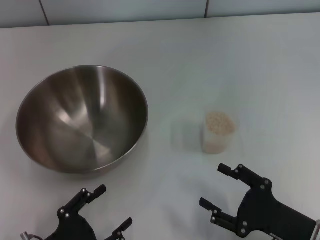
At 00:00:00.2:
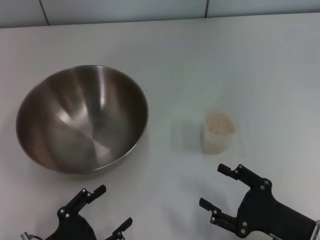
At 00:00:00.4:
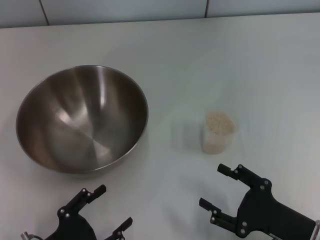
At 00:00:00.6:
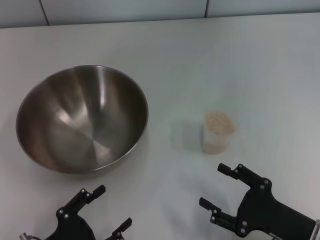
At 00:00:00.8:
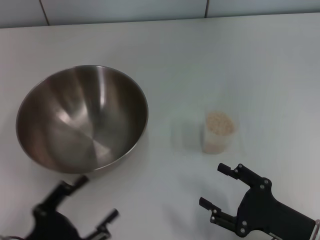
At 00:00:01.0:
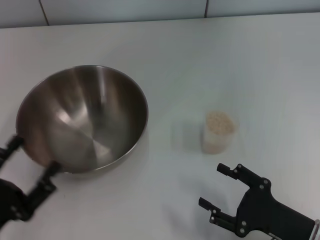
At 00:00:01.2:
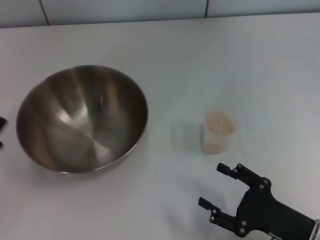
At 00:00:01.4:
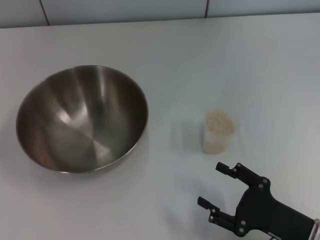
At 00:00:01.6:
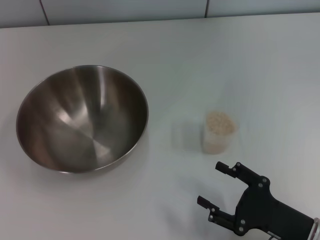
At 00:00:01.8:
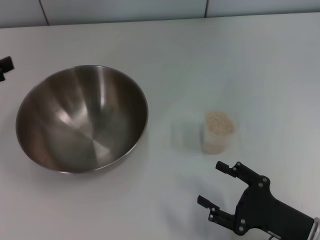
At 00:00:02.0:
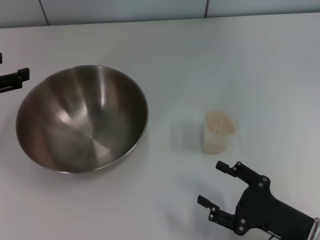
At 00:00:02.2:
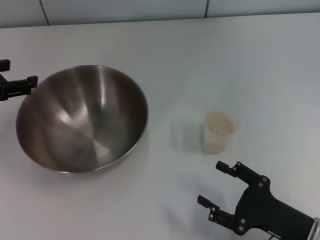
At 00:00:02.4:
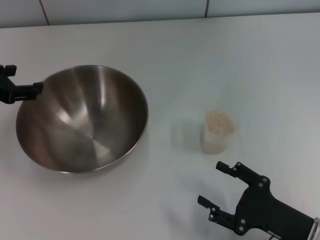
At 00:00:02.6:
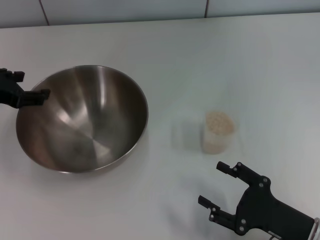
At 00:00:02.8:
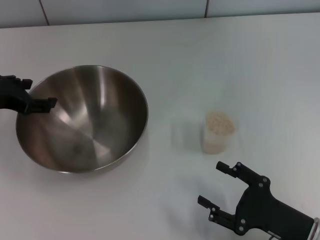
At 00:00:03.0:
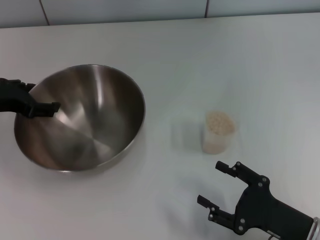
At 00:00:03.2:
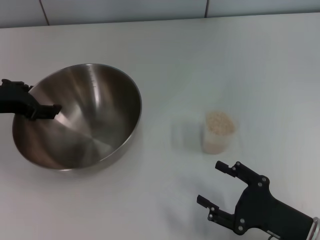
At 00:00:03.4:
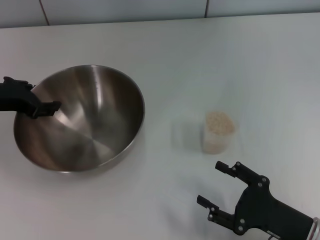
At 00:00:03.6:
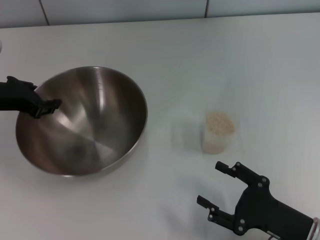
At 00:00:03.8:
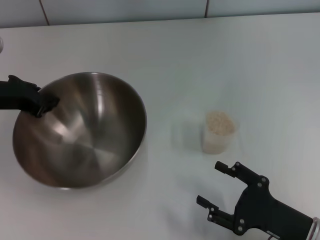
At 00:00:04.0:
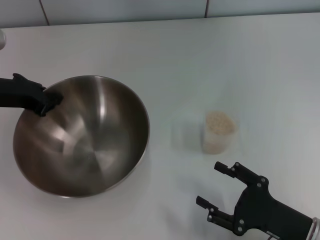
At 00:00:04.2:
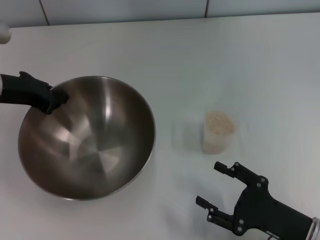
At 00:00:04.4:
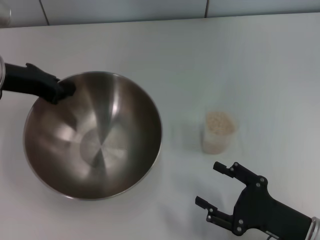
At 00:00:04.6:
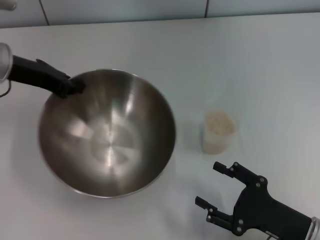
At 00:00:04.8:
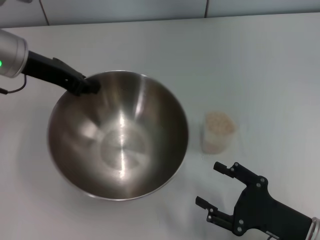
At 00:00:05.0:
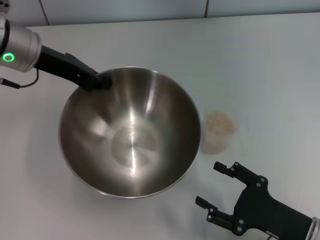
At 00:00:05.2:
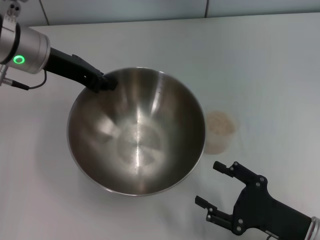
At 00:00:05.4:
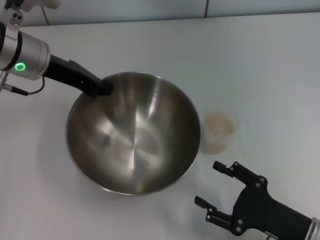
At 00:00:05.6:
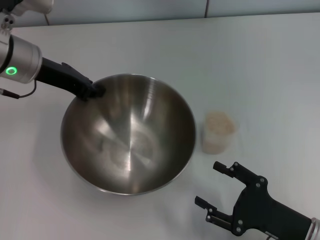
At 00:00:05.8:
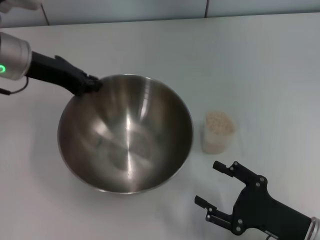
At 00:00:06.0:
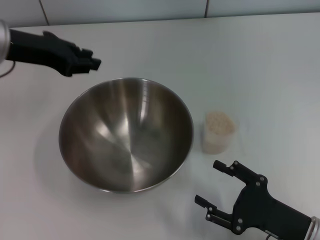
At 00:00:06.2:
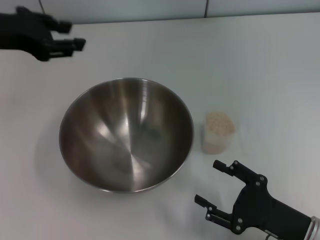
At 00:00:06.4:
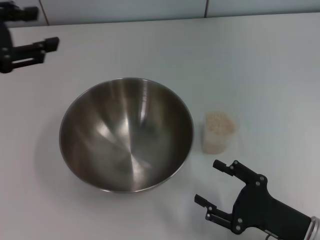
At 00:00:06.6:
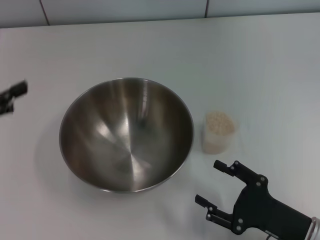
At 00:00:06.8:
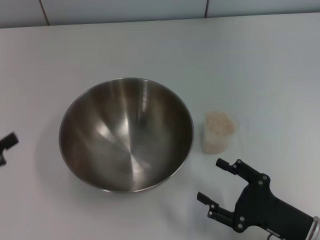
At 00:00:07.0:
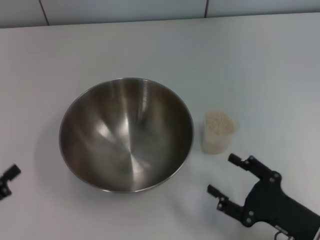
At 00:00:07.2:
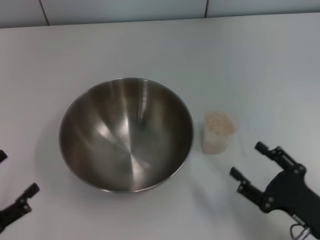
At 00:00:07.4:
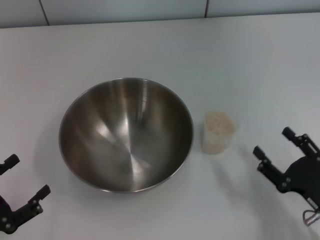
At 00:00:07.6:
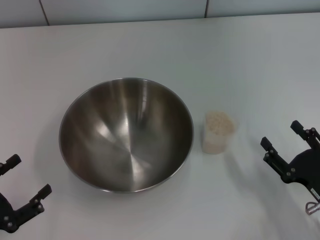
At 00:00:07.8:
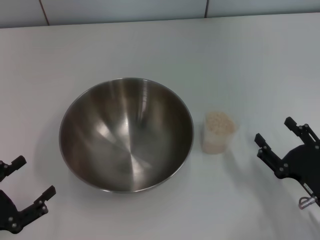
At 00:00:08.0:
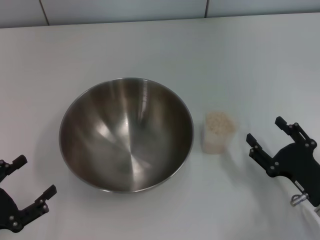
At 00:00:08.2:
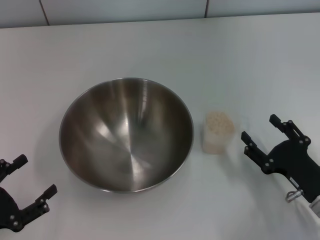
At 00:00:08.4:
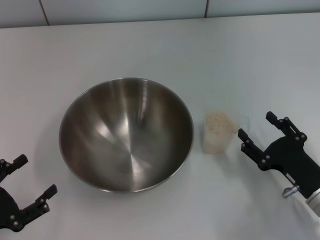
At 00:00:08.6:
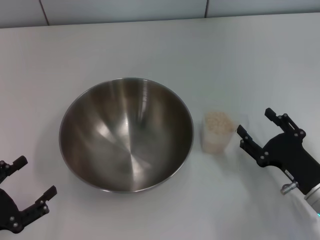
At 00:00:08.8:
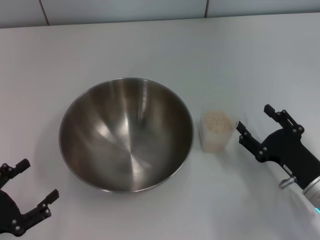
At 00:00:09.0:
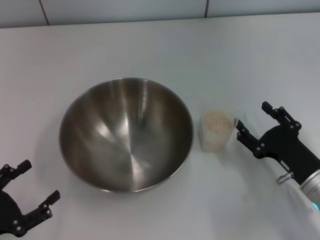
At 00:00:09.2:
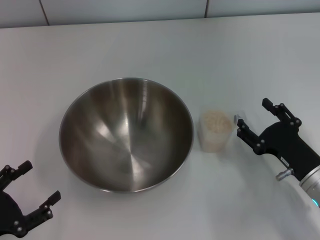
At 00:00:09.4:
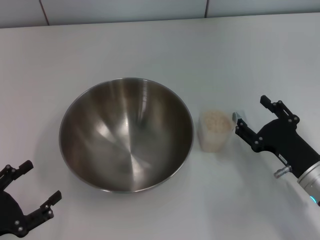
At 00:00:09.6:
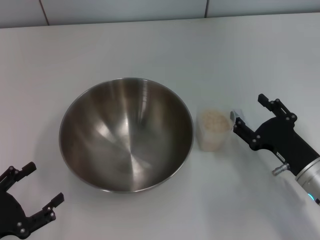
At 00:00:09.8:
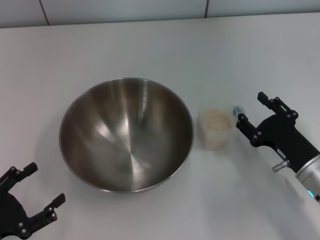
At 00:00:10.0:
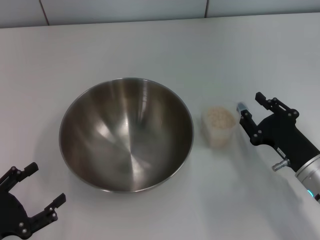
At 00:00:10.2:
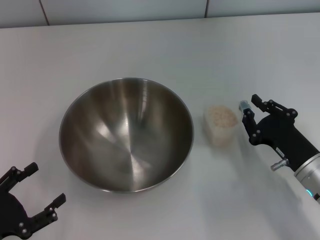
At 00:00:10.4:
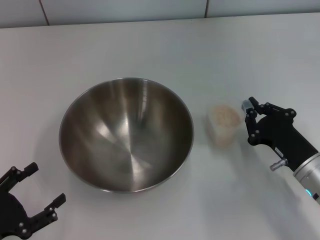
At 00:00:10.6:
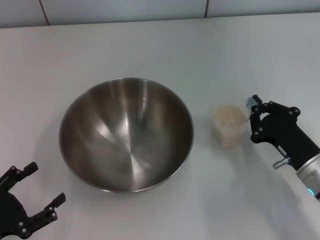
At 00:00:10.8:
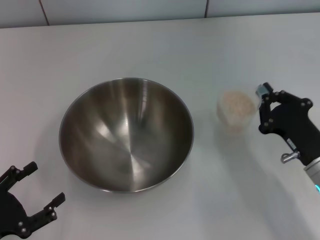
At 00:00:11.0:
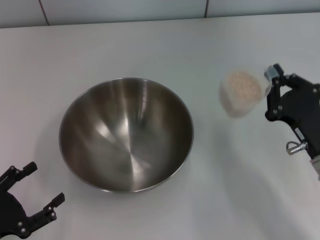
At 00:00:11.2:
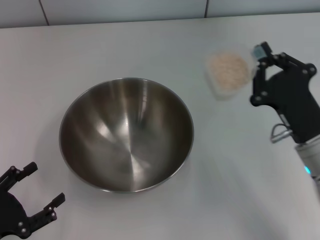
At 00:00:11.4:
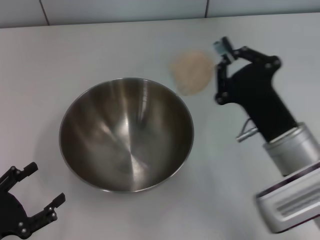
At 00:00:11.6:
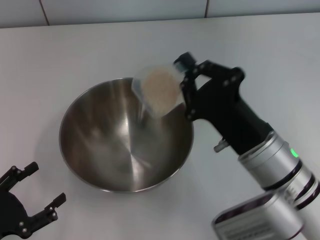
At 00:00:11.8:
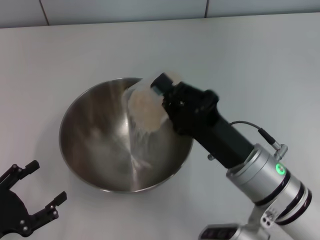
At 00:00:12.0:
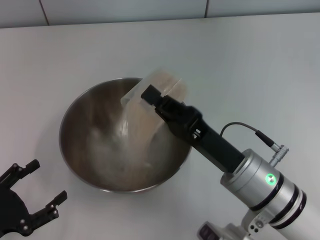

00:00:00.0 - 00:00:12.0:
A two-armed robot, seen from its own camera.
Task of the whole recording: Place the bowl in the middle of the table with one hand and pour the rice from the grain cup into it with the other hand.
Step, 00:00:00.0 - 00:00:04.8: Pick up the bowl with the left gripper.
Step, 00:00:05.0 - 00:00:06.4: Place the bowl in the center of view with the left gripper.
Step, 00:00:06.6 - 00:00:11.0: Pick up the cup with rice in it with the right gripper.
00:00:00.0 - 00:00:01.6: The left gripper goes about 25 cm upward, forward and to the left.
00:00:01.6 - 00:00:03.0: The left gripper shifts some 10 cm forward and to the right.
00:00:03.0 - 00:00:04.4: The left gripper changes place by some 5 cm, and closes its fingers.
00:00:04.4 - 00:00:06.0: The left gripper ends up some 5 cm from where it was.
00:00:06.0 - 00:00:07.6: The left gripper goes roughly 30 cm backward and downward, and opens up.
00:00:07.6 - 00:00:09.0: The right gripper goes approximately 5 cm forward.
00:00:09.0 - 00:00:10.4: The right gripper closes up.
00:00:10.4 - 00:00:12.0: The right gripper moves to the left and upward, approximately 15 cm.

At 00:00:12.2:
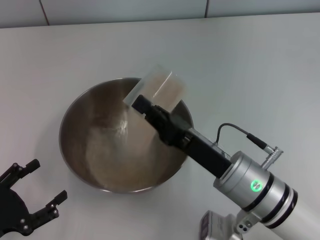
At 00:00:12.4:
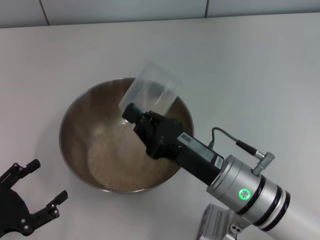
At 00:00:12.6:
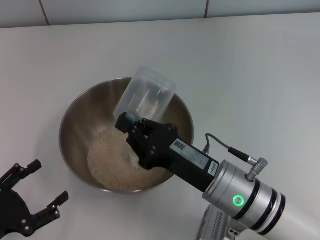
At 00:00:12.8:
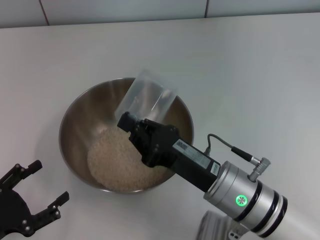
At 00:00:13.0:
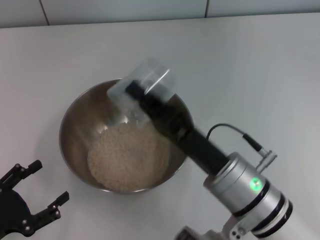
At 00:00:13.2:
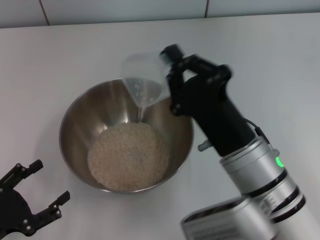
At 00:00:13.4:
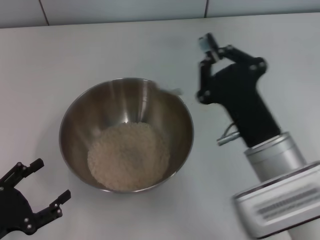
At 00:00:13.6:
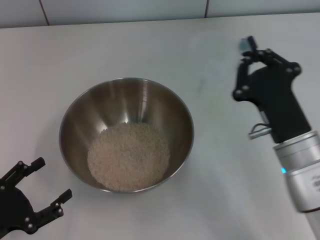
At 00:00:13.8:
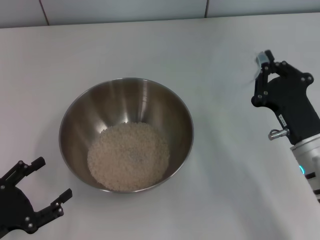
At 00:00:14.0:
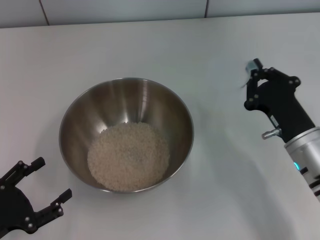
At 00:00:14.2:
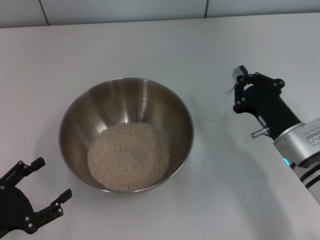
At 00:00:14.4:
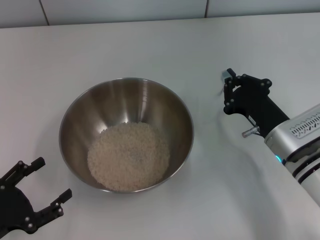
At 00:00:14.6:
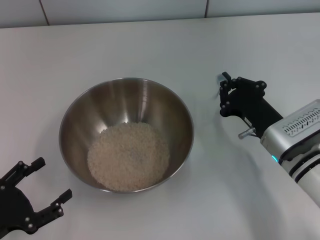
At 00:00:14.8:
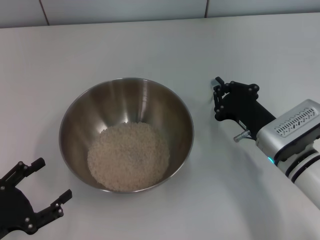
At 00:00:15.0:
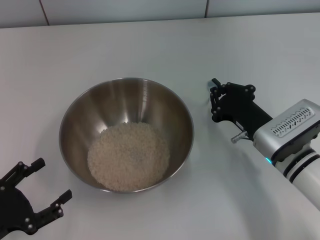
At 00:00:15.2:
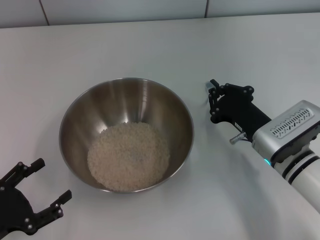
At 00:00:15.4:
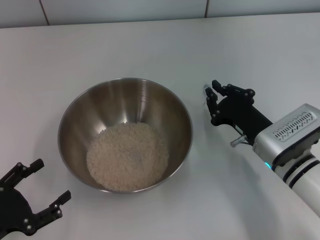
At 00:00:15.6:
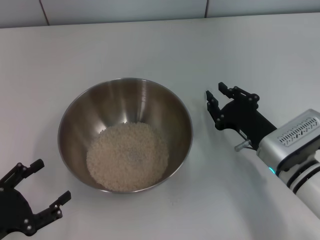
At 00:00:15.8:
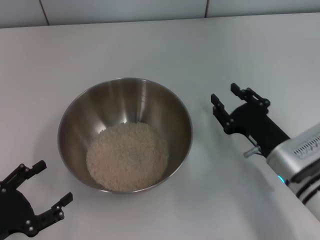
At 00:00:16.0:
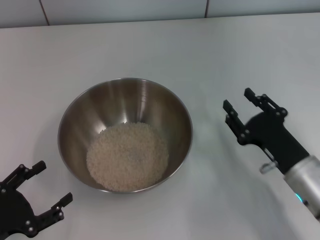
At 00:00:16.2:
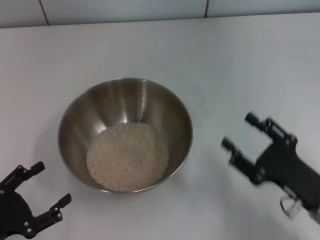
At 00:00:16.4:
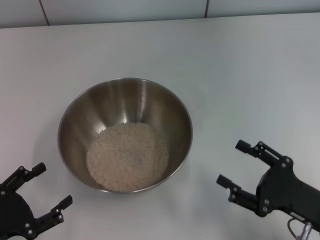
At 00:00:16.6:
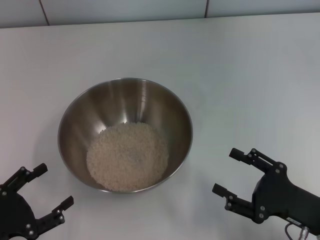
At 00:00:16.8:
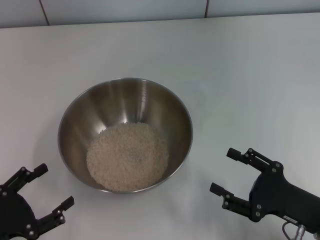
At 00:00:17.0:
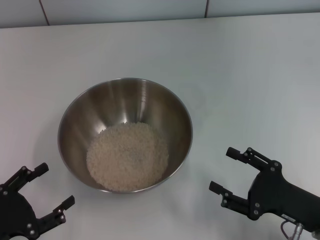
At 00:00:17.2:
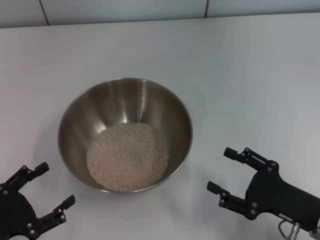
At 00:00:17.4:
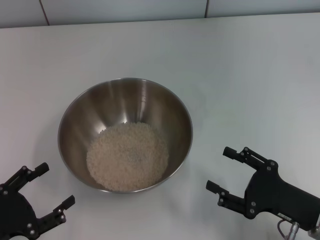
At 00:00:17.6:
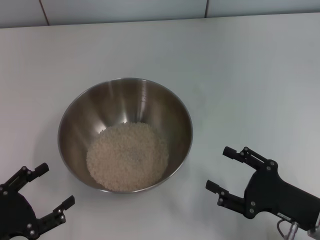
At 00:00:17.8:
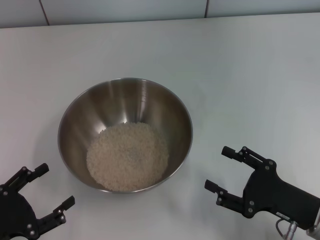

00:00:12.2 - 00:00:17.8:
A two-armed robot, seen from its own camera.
Task of the whole recording: Place the bowl in the middle of the table with one hand and pour the rice from the grain cup into it with the other hand.
Step, 00:00:12.2 - 00:00:13.4: Pour the rice from the cup into the bowl with the right gripper.
Step, 00:00:13.6 - 00:00:16.0: Place the cup on the table with the right gripper.
00:00:12.2 - 00:00:13.6: The right gripper shifts approximately 5 cm to the right.
00:00:13.6 - 00:00:15.0: The right gripper is displaced forward by some 5 cm.
00:00:15.0 - 00:00:16.4: The right gripper goes approximately 15 cm backward and to the right, and opens its fingers.
00:00:16.4 - 00:00:17.8: The grippers move only a little.
